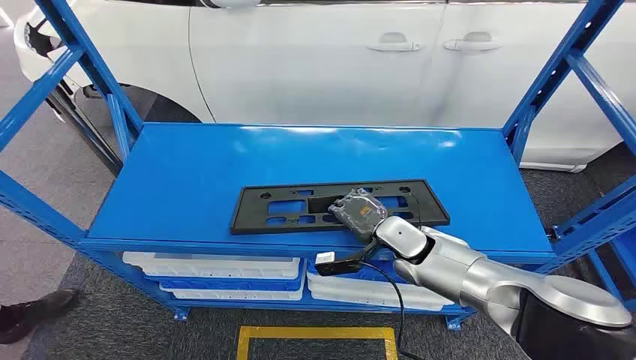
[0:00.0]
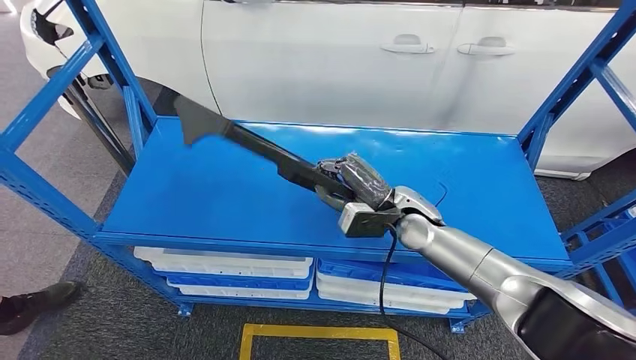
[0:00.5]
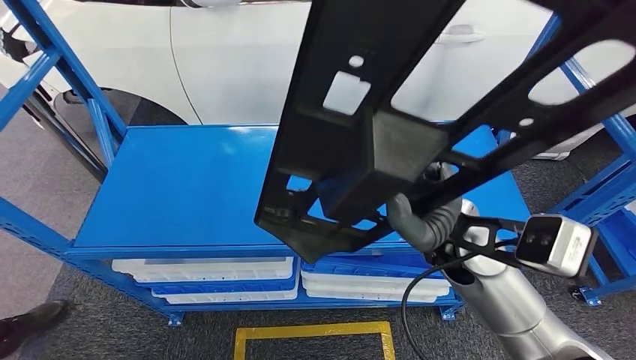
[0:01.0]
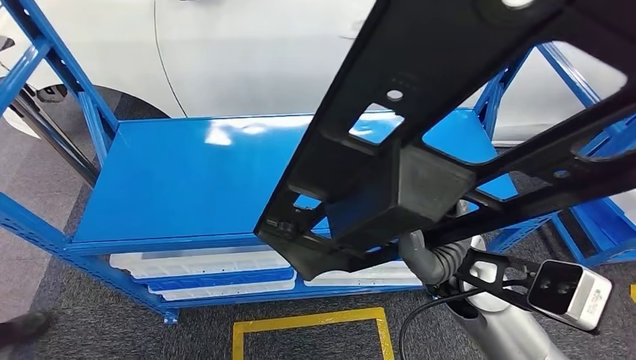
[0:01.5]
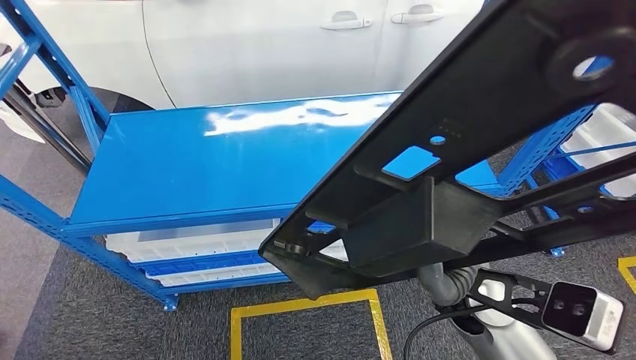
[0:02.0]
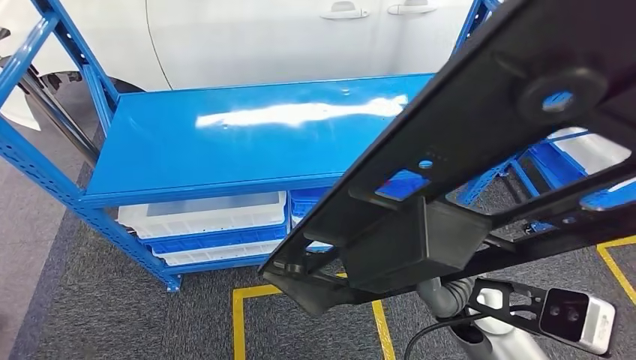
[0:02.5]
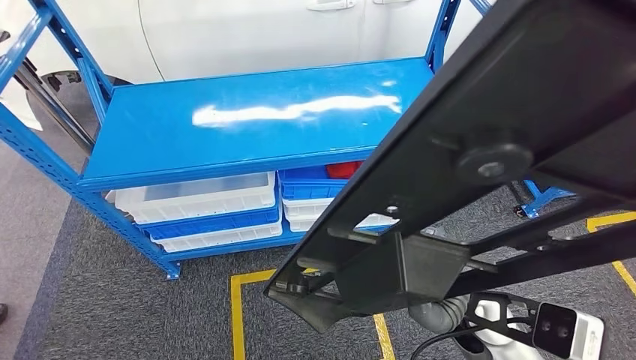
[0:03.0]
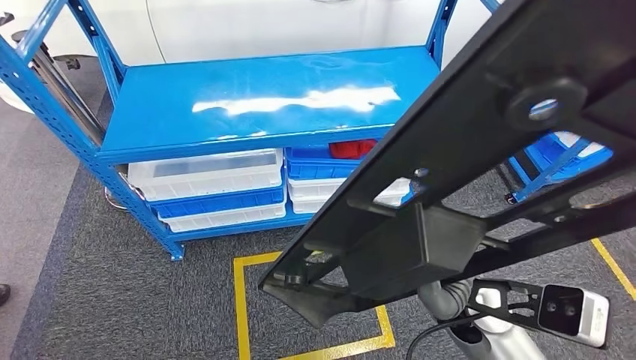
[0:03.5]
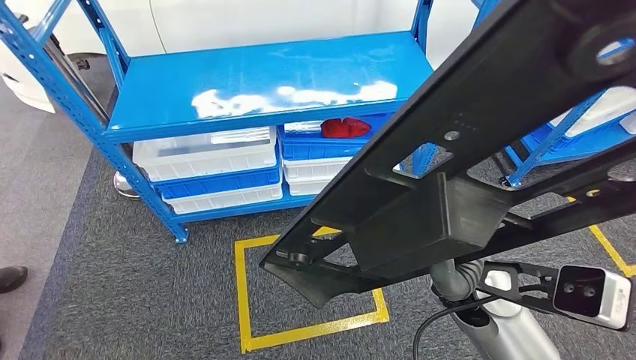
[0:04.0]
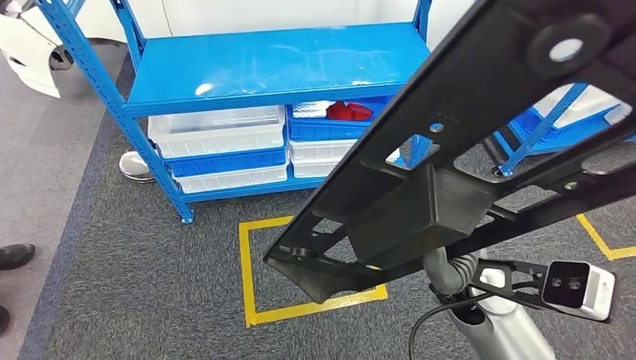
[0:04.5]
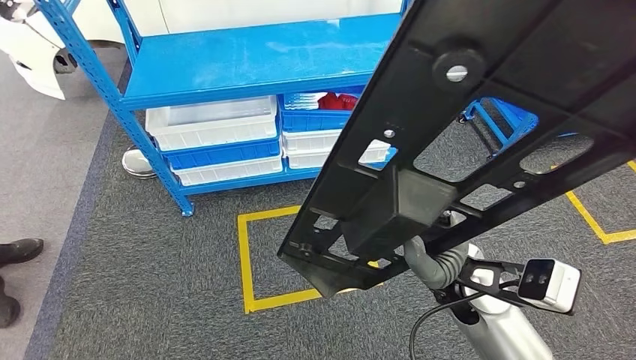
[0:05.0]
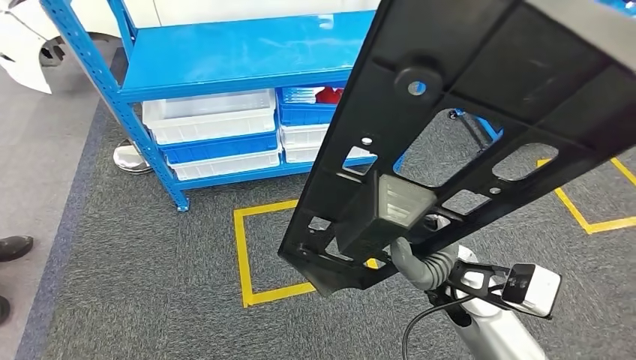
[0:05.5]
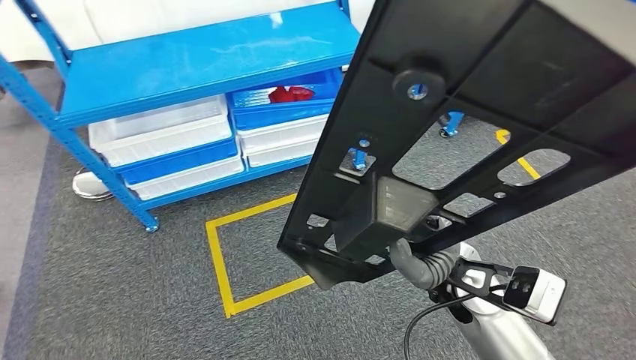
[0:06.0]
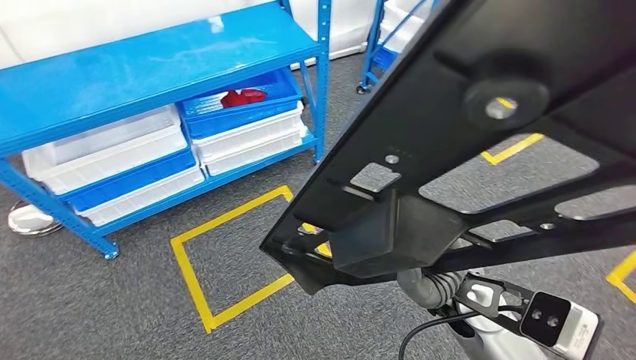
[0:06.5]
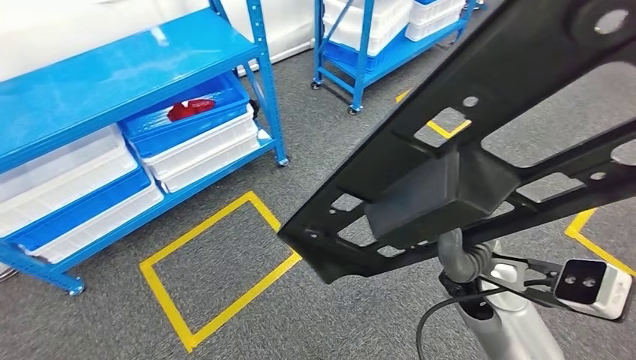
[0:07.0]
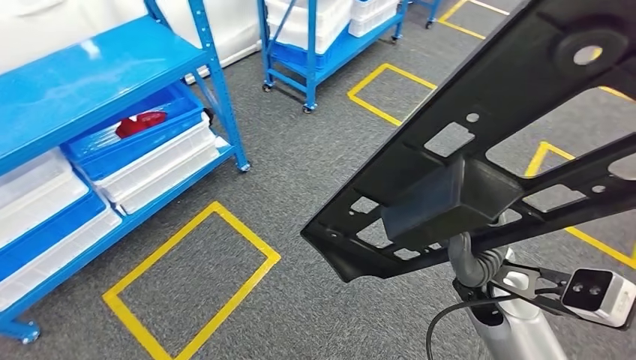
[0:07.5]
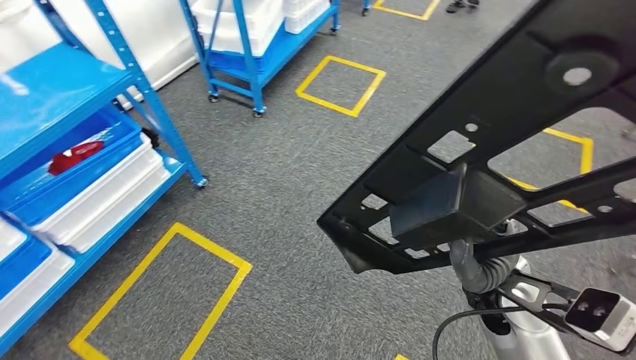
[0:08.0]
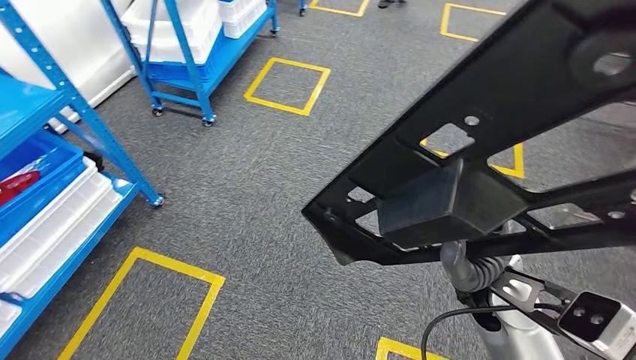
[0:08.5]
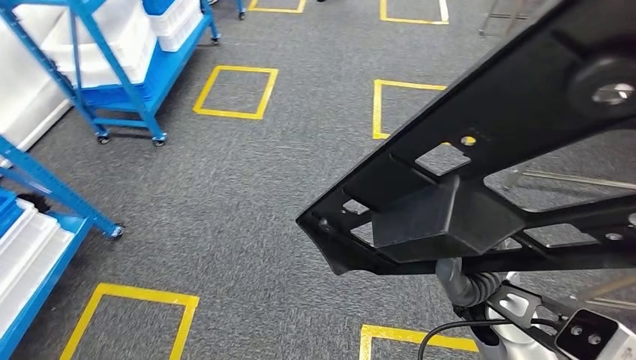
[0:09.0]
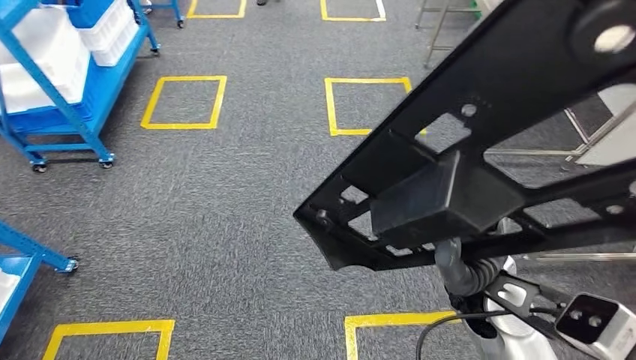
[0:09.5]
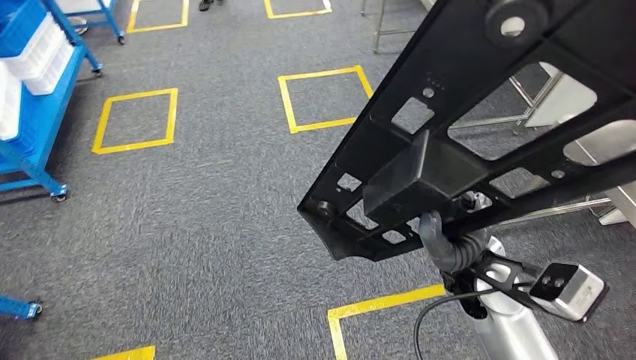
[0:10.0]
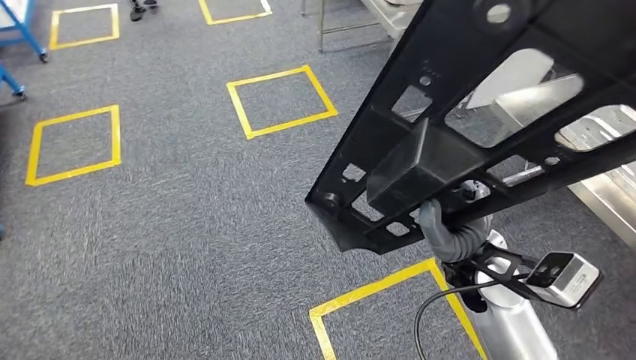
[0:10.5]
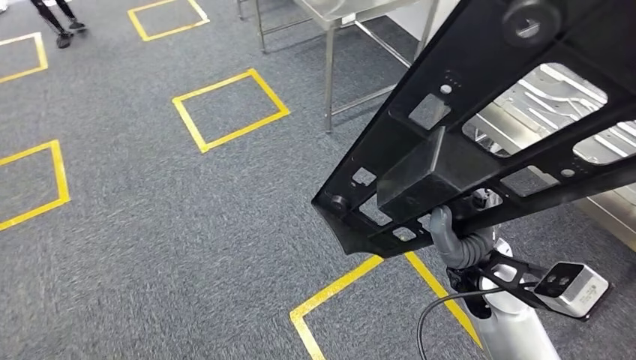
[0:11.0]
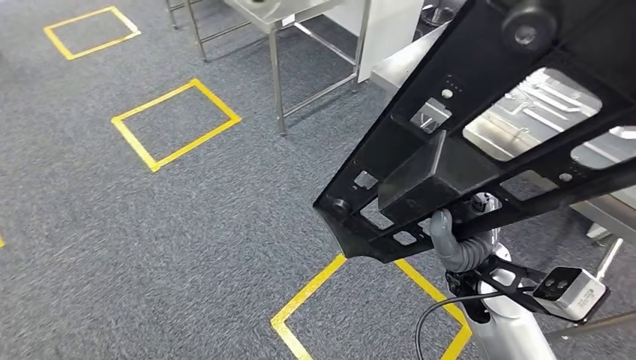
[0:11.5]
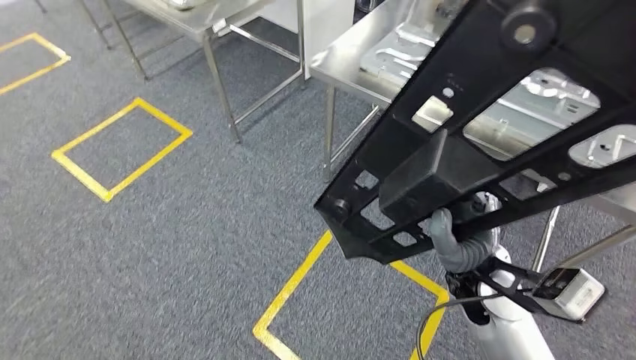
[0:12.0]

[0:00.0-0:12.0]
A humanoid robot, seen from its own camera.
Step, 0:00.0 to 0:04.5: Pick up the large material from the shelf.

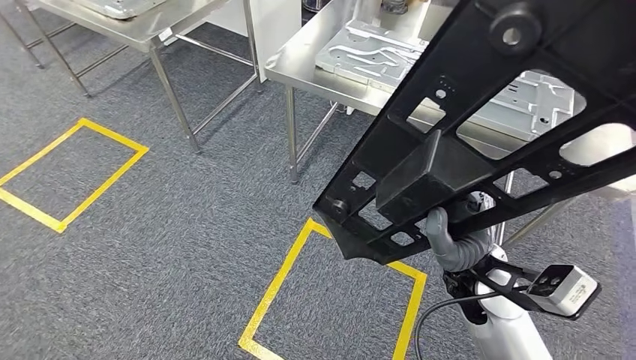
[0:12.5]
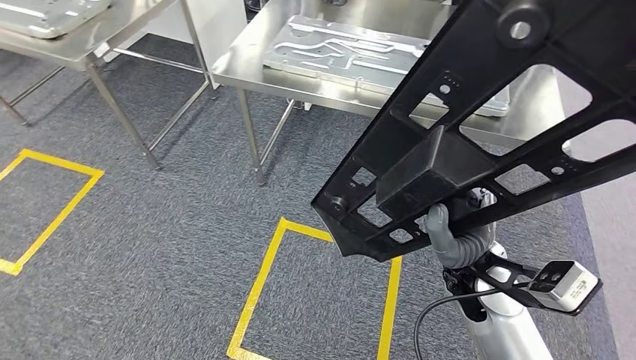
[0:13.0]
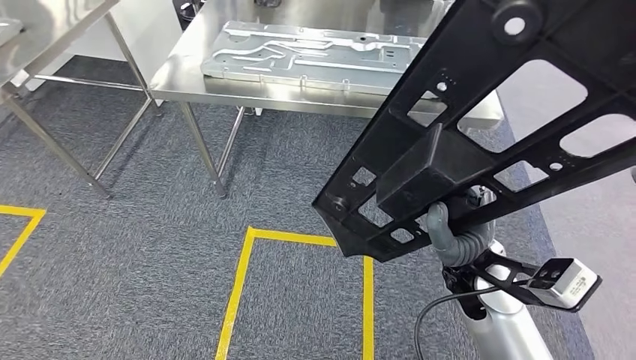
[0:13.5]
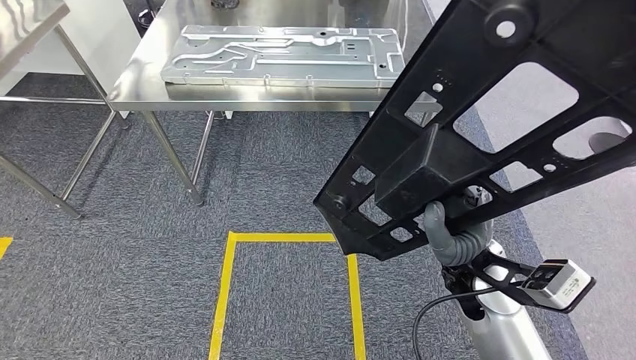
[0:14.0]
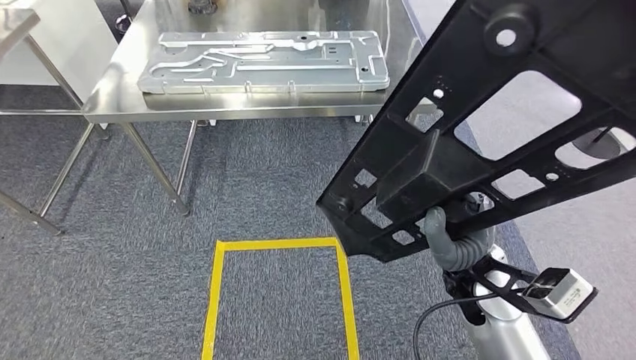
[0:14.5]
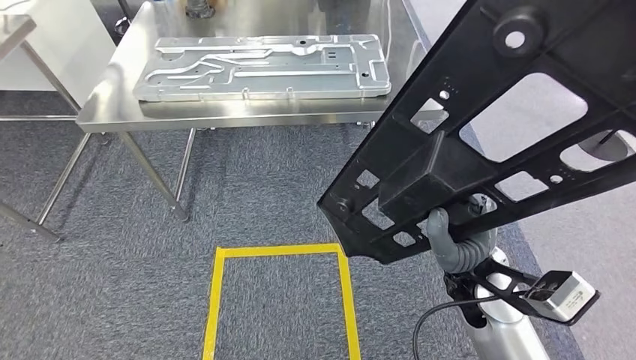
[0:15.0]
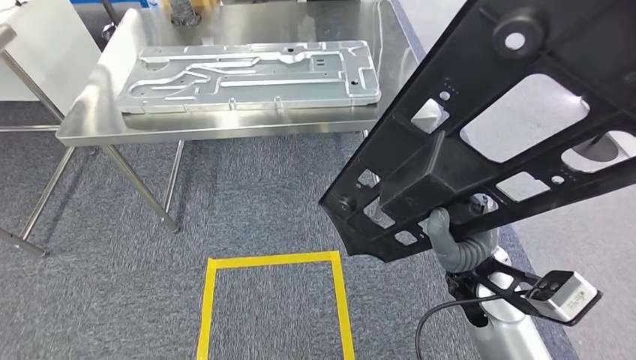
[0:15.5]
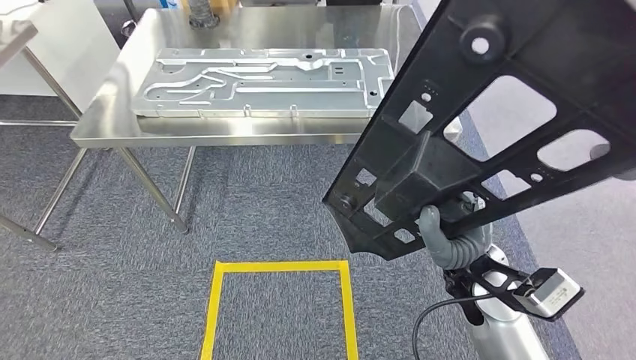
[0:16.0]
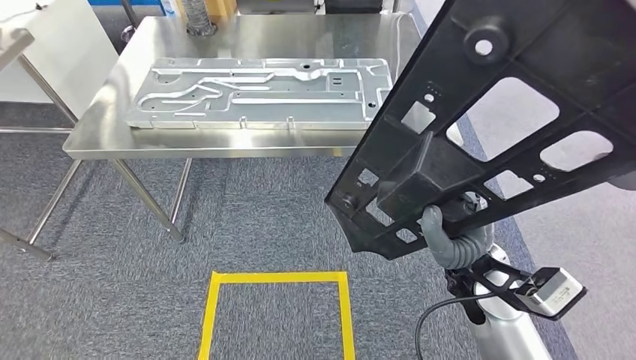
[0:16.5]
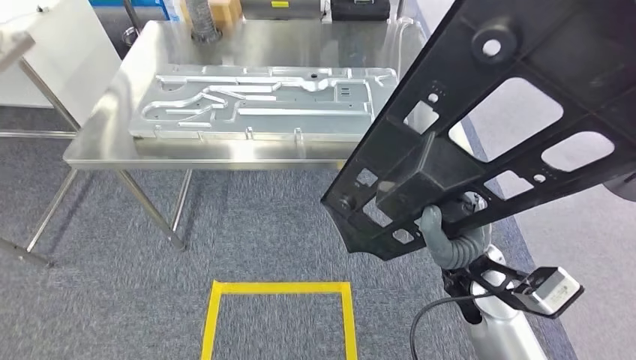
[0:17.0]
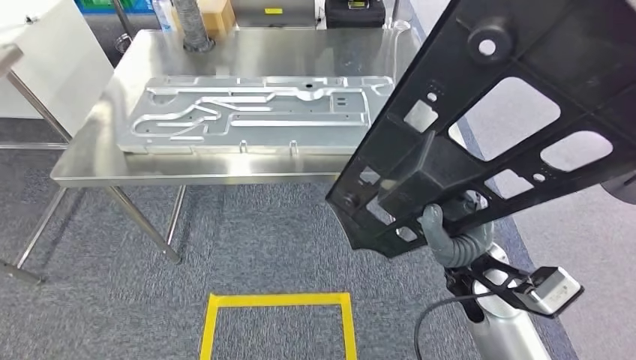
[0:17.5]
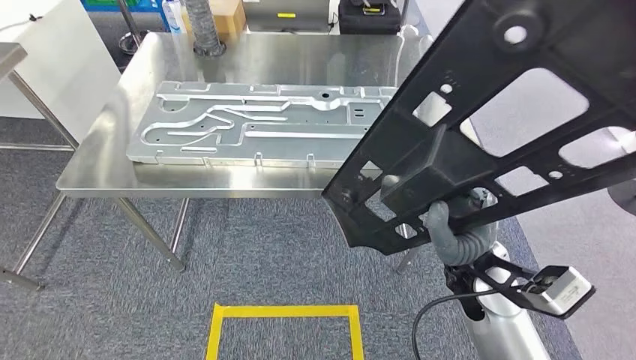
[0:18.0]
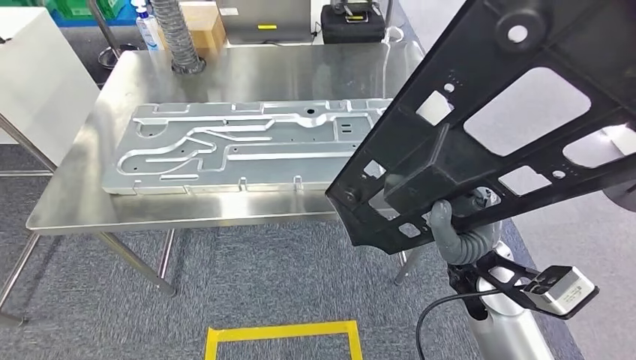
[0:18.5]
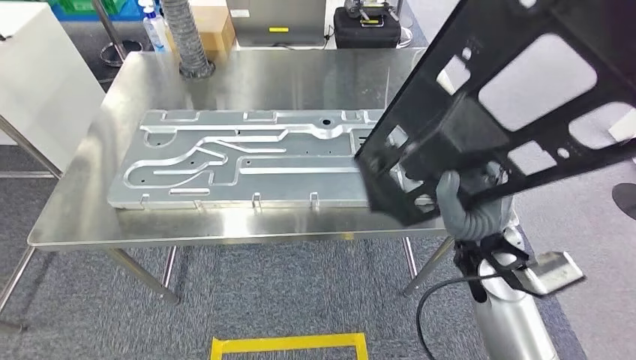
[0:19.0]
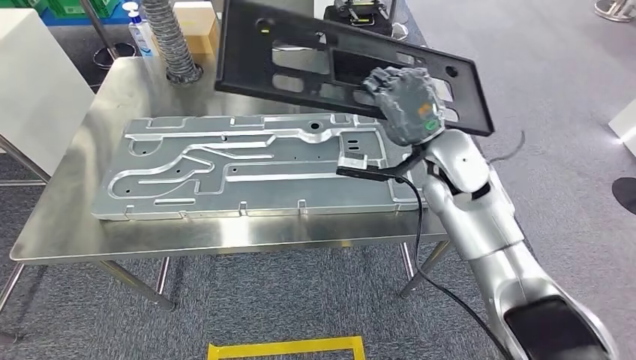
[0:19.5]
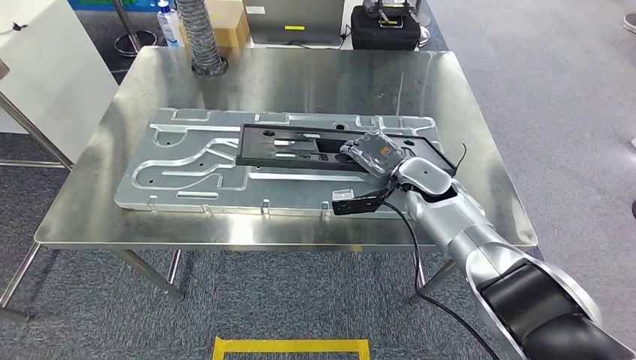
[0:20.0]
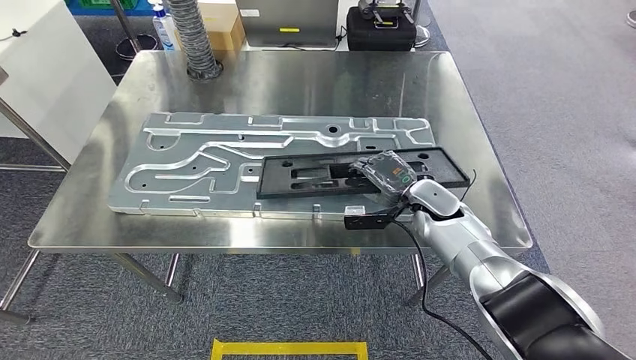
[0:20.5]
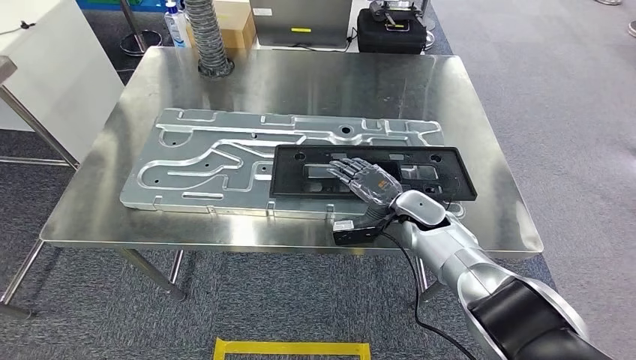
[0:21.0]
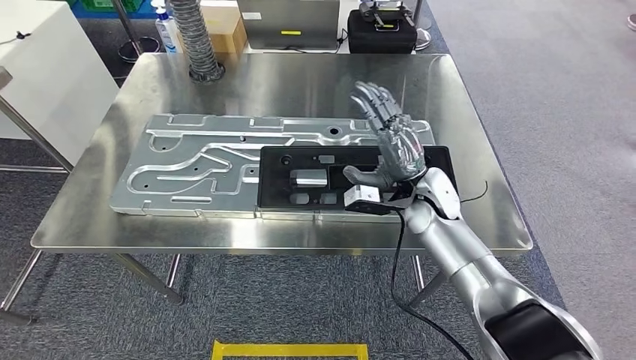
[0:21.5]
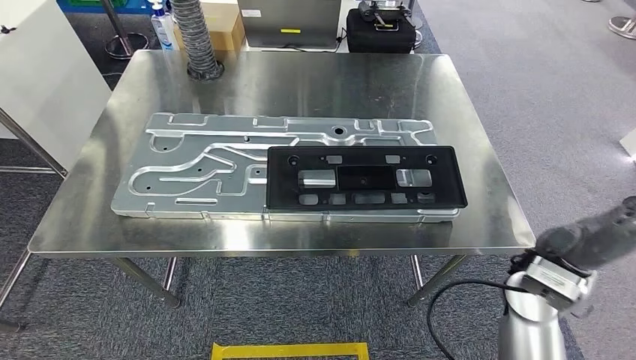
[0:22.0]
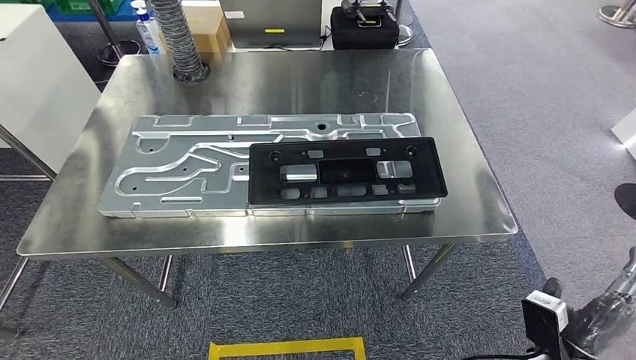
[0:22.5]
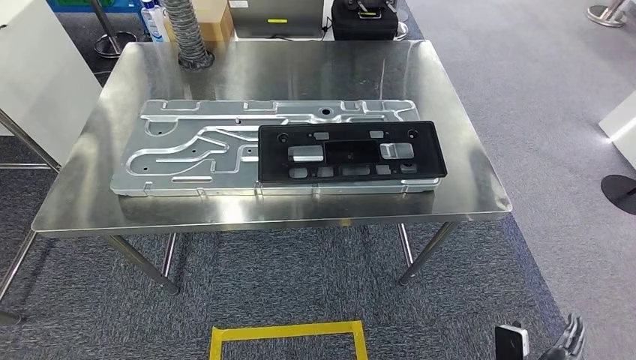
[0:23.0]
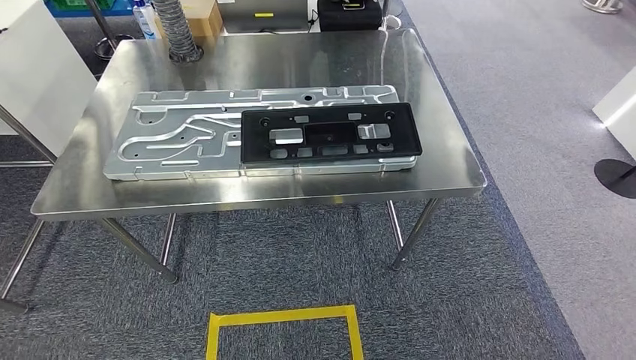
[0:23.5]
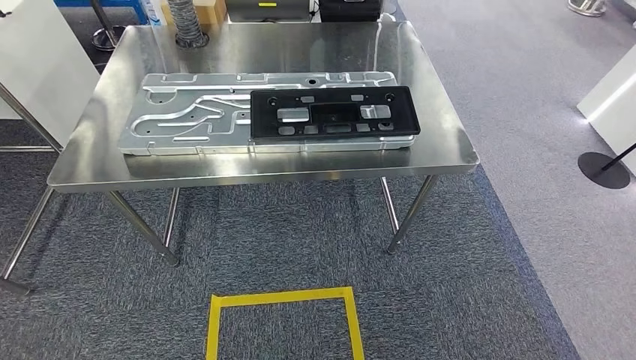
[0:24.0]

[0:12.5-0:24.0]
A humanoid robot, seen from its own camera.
Step, 0:12.5 to 0:19.0: Move the large material to the workbench.
Step, 0:19.5 to 0:22.0: Insert the large material into the corresponding slot on the workbench.
